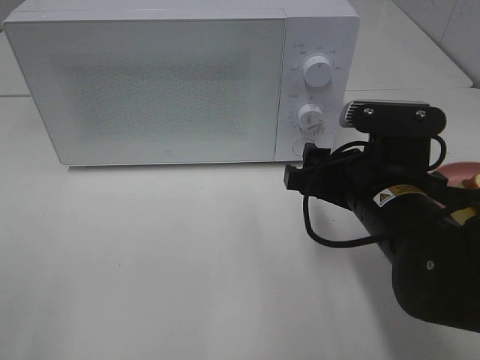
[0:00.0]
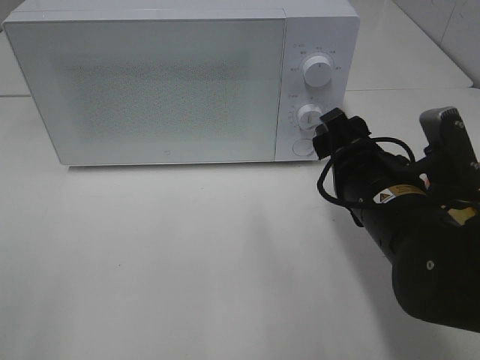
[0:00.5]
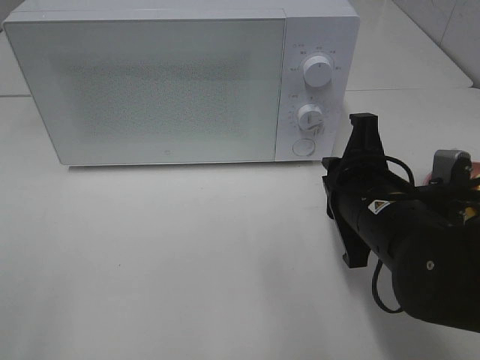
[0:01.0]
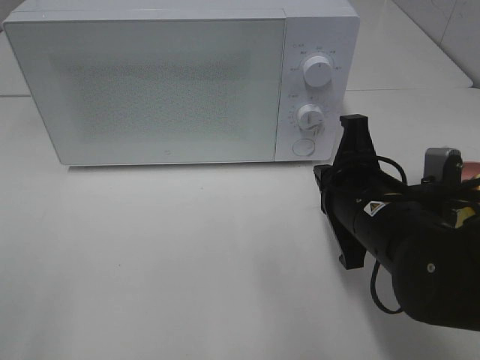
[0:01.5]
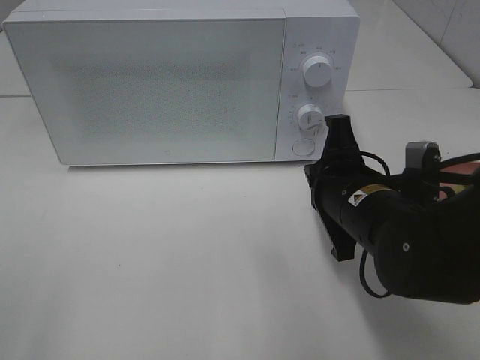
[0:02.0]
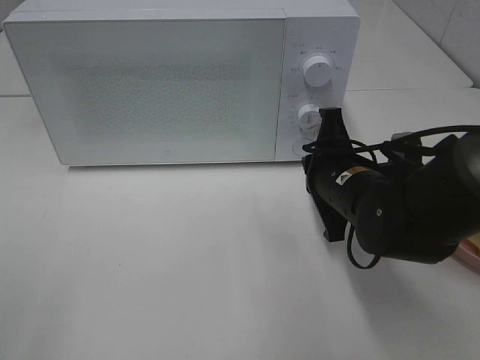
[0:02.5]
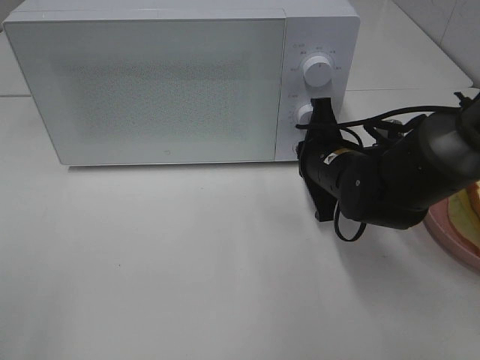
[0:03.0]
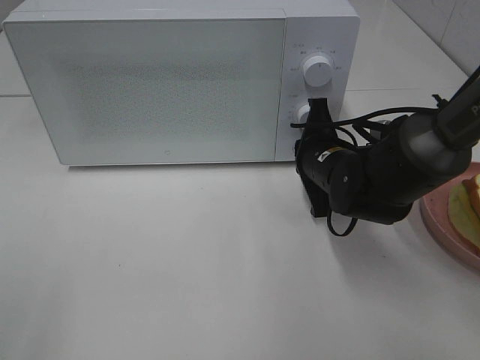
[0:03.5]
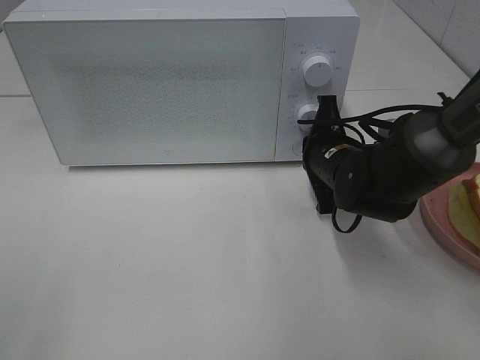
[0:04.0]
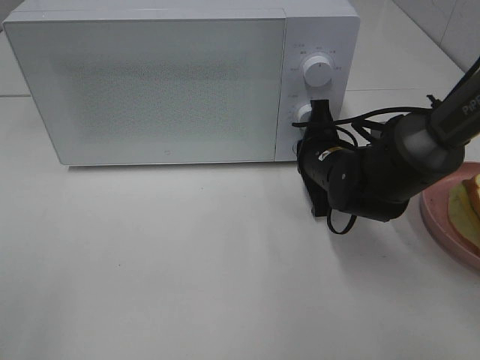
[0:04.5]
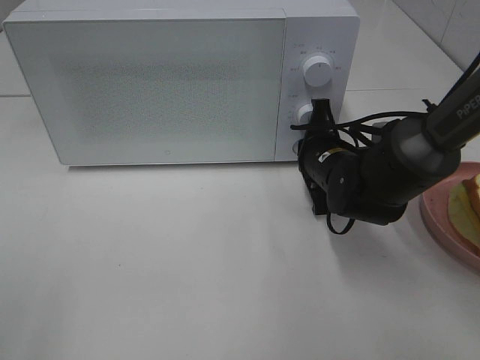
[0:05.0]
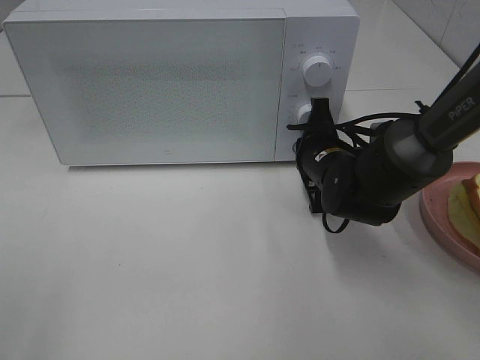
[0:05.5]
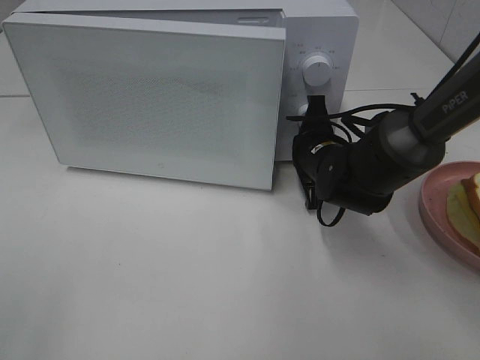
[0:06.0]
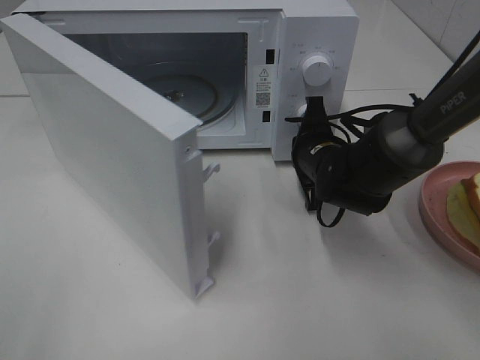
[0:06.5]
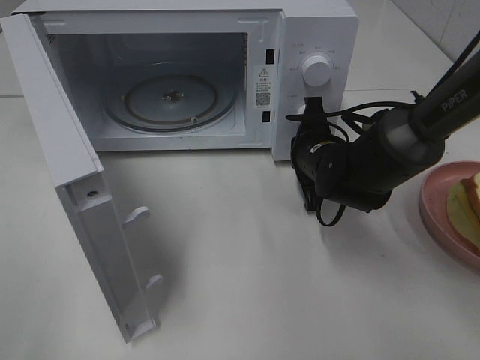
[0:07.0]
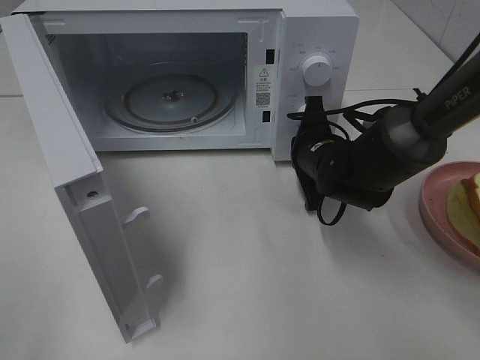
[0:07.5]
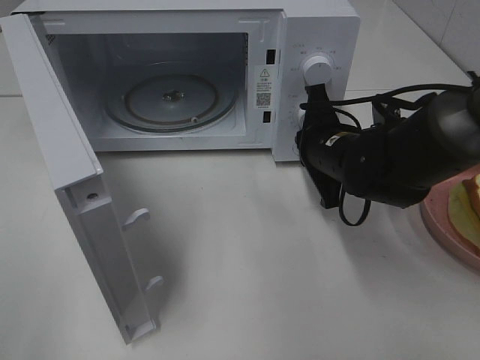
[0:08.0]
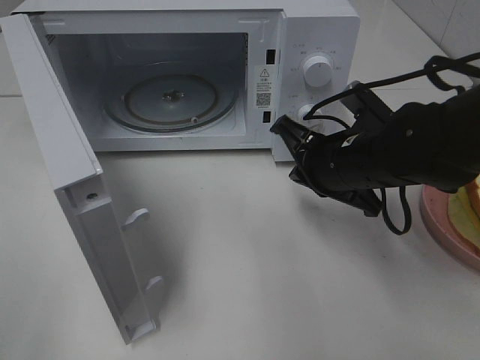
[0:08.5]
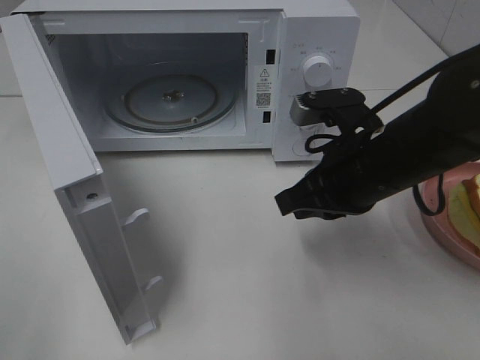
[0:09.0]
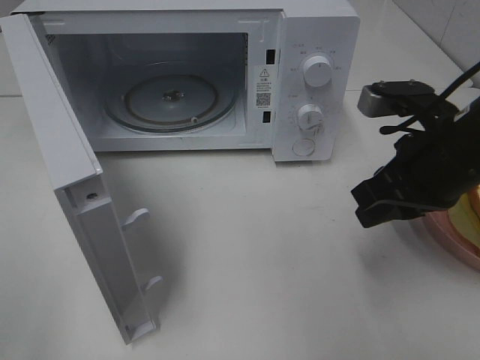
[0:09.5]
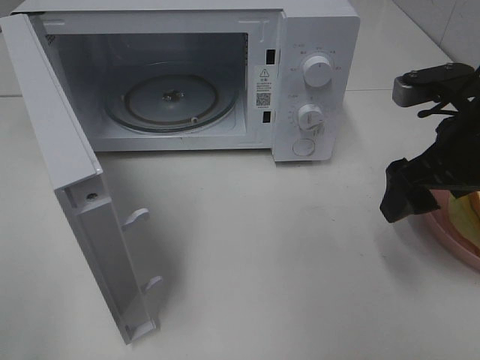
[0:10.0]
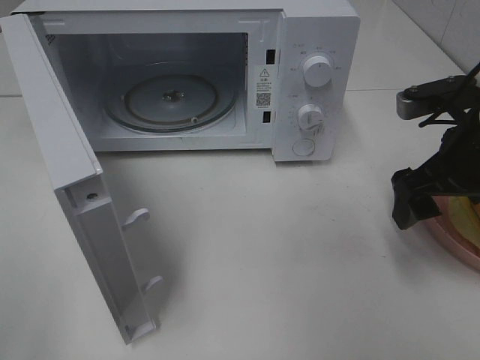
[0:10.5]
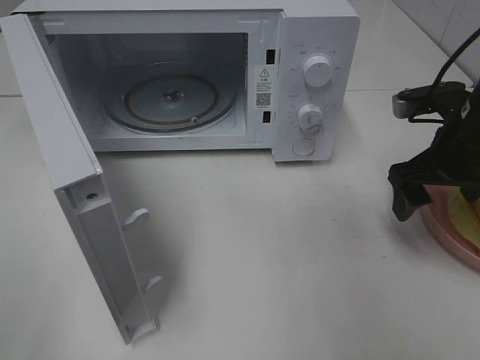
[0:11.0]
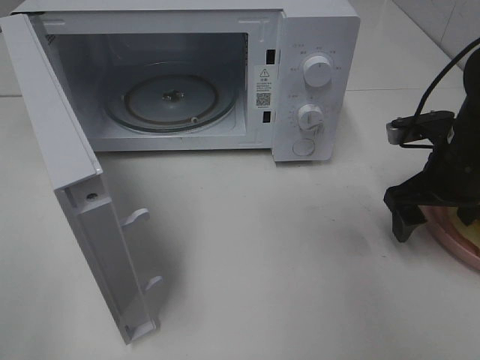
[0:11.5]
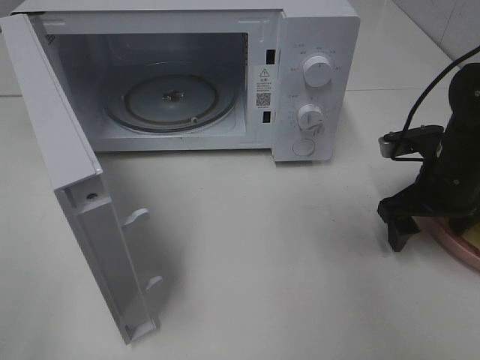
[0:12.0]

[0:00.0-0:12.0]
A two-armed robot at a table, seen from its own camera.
Task of the whole recording: Heat Sandwich.
Step, 0:00.0 to 0:08.0: Right hand: press the switch.
0:00.0 to 0:02.0: The right gripper closes up.
0:02.0 to 0:04.0: The right gripper moves forward, about 10 cm.
0:04.0 to 0:06.0: The grippers make only small movements.
0:08.0 to 0:10.0: The right gripper goes some 15 cm upward, to the right and backward, and opens up.
0:10.0 to 0:12.0: The right gripper heads downward and forward, covering some 10 cm.

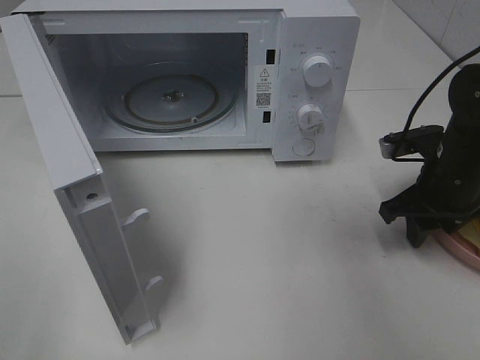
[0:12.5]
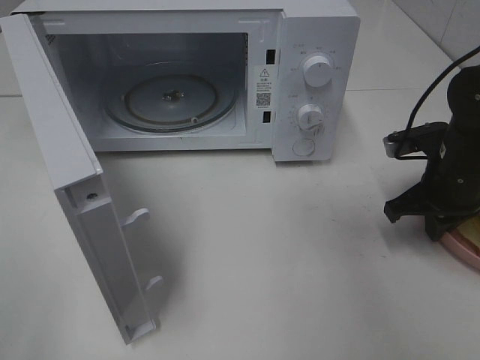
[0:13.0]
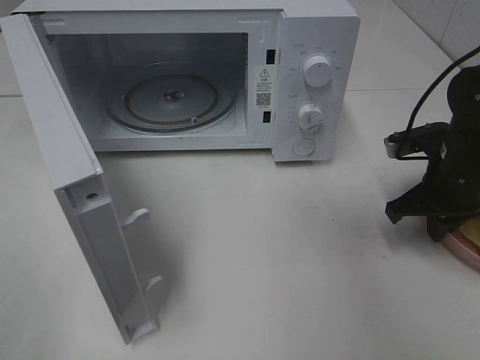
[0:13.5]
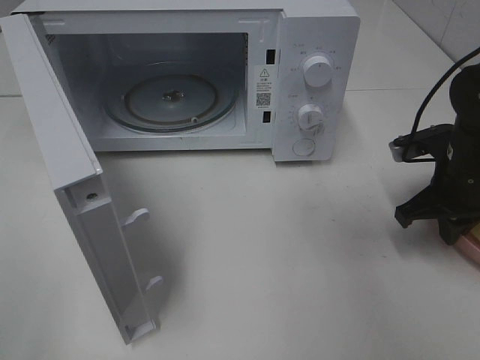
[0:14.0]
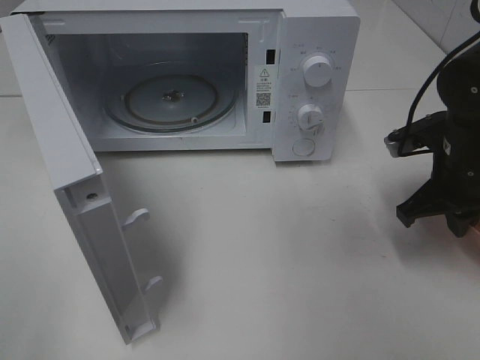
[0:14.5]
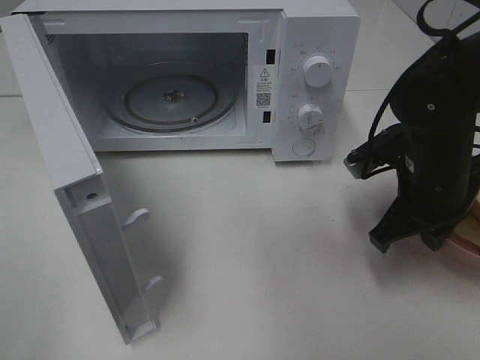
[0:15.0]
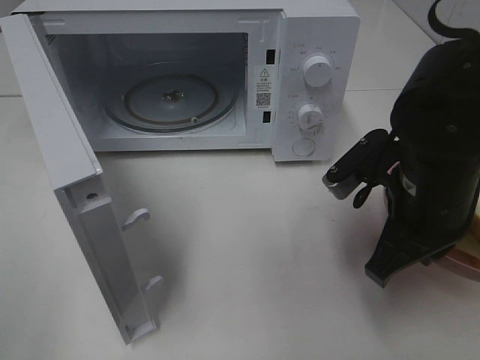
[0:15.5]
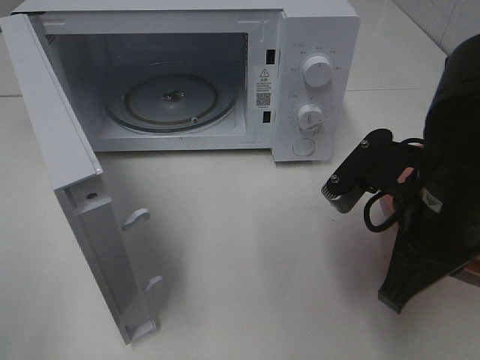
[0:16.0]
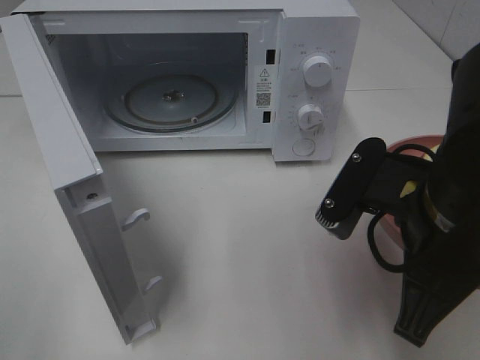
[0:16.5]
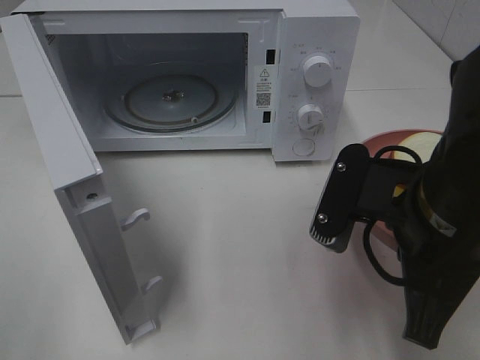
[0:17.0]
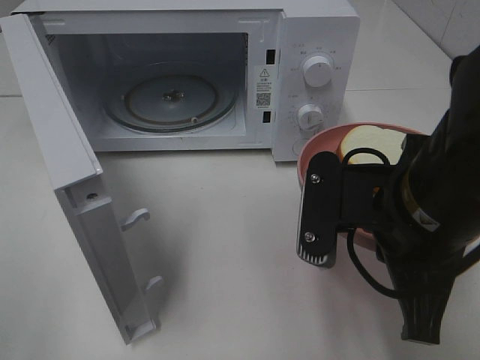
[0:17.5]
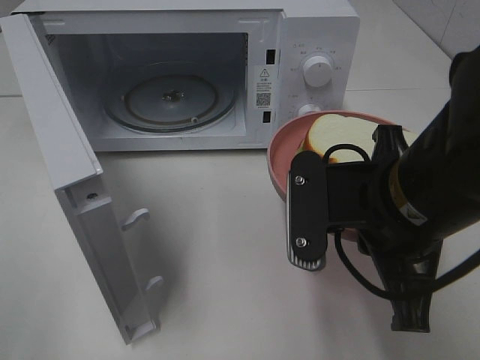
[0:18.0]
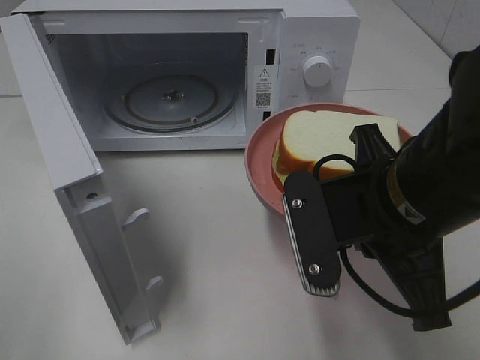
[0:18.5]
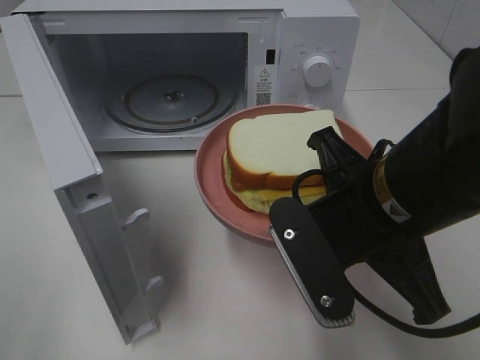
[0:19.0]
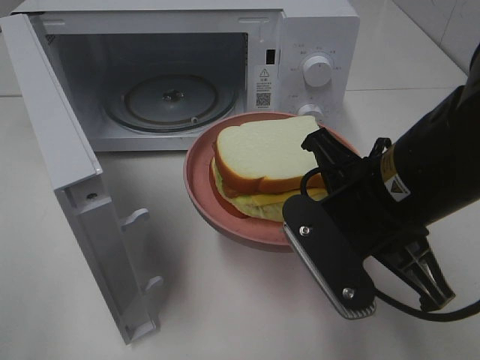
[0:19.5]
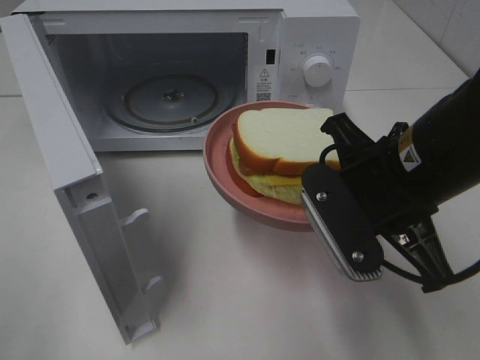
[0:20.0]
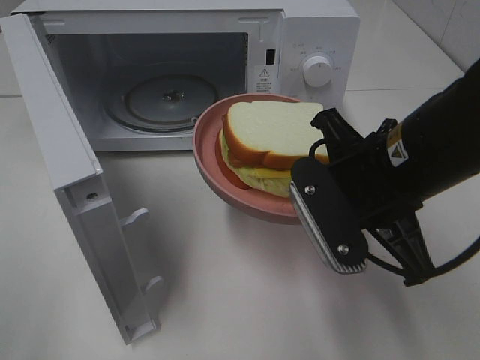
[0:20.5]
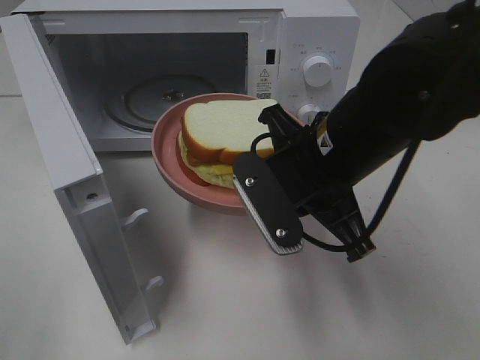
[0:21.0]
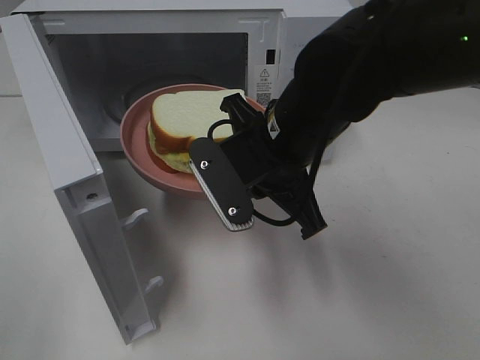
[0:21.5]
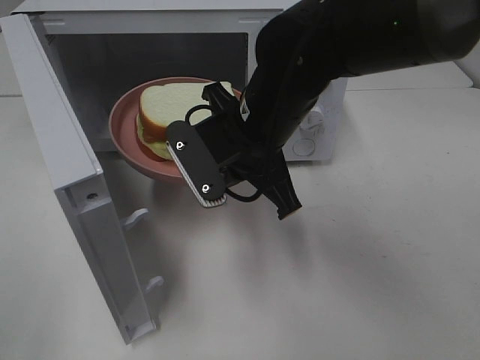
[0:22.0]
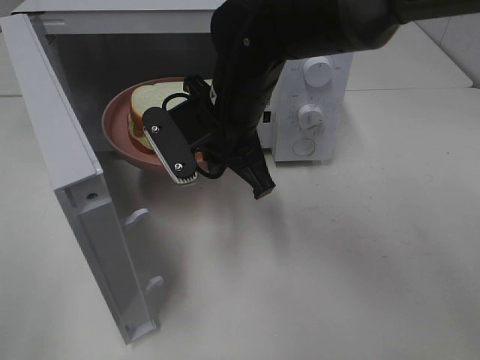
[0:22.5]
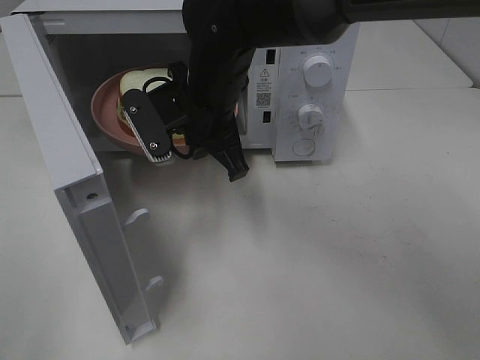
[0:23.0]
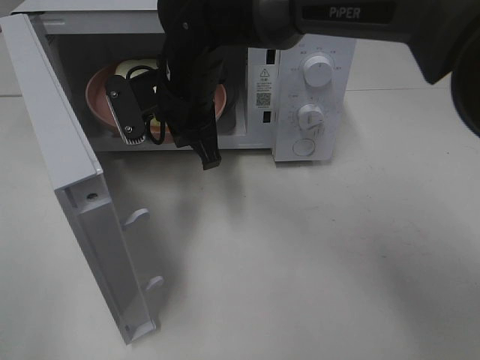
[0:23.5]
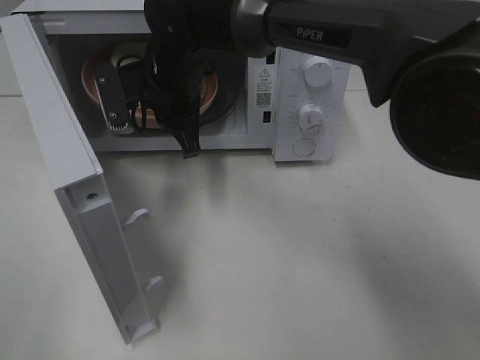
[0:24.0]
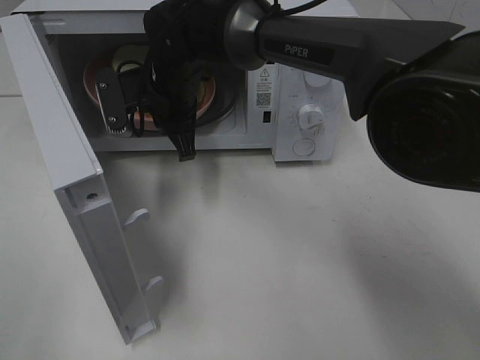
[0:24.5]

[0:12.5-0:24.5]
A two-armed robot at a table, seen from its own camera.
Task of the whole recording: Heat Sandwich.
0:12.5 to 0:14.5: The right gripper closes.
0:14.5 to 0:16.5: The right gripper is displaced backward, to the left and upward by approximately 20 cm.
0:20.5 to 0:22.5: The right gripper shifts some 15 cm to the left and forward.
0:22.5 to 0:24.5: The right gripper goes approximately 10 cm forward and to the left.

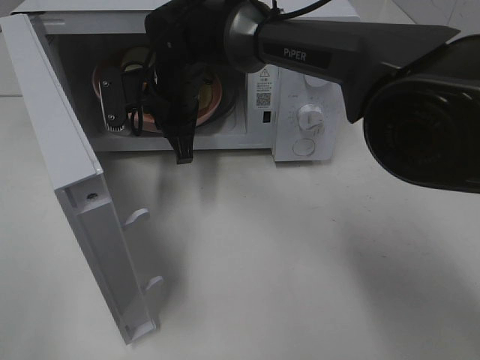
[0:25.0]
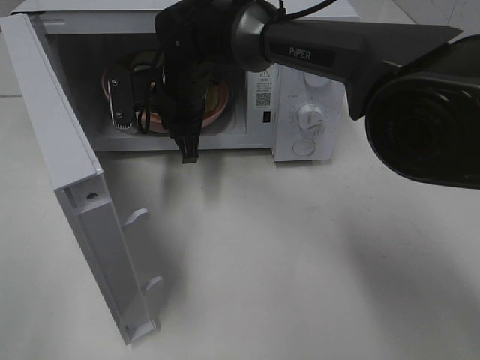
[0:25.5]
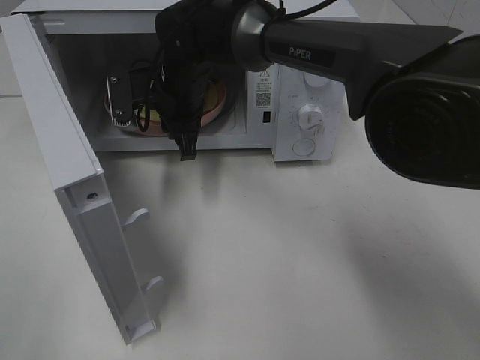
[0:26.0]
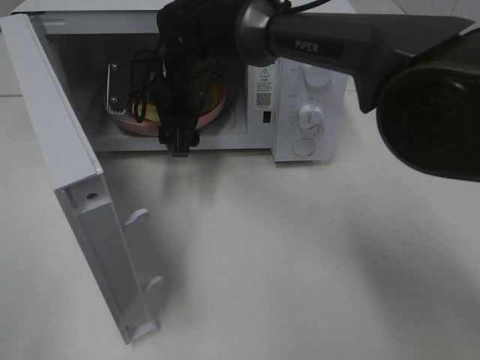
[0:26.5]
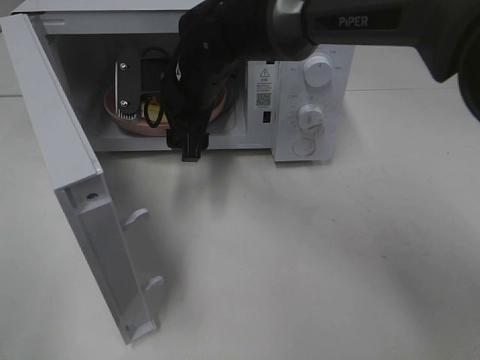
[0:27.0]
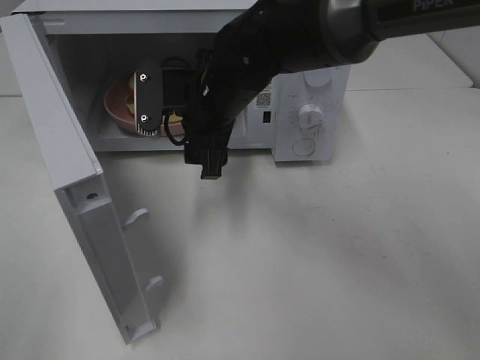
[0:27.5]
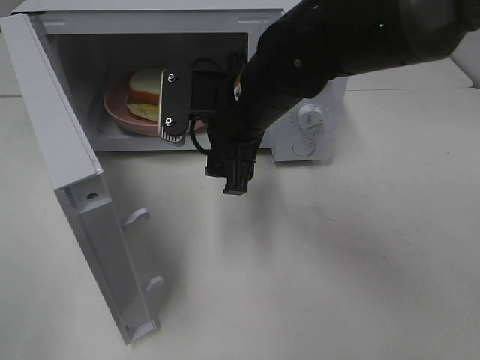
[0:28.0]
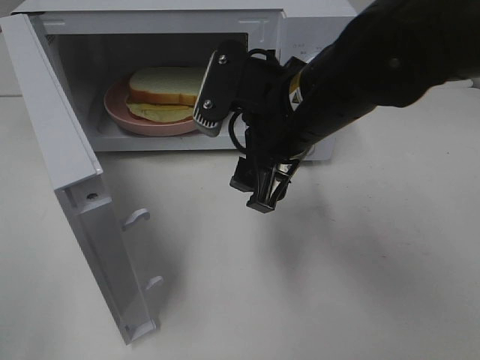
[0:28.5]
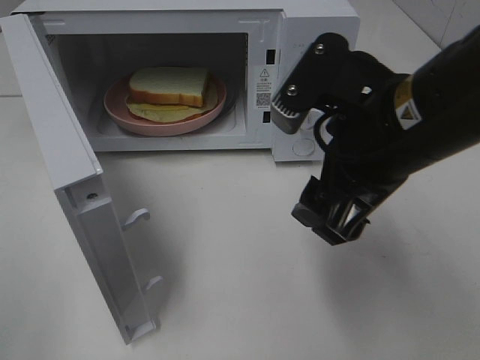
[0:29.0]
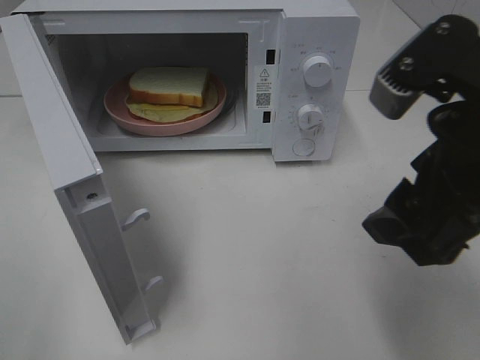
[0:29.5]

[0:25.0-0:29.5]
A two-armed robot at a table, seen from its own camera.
Task of the whole recording: Heat Sandwich.
Step, 0:25.0 to 0:27.0: Right hand: place the plate in the microwave.
0:25.0 to 0:27.0: The right gripper opens up.
0:27.0 to 0:29.5: The right gripper is displaced backward, to the right and upward by about 35 cm.
